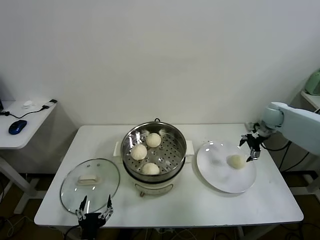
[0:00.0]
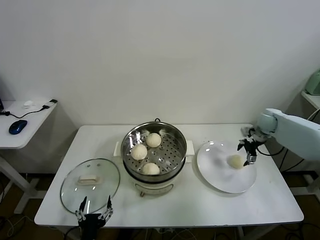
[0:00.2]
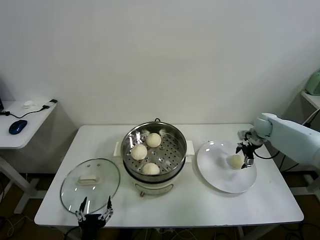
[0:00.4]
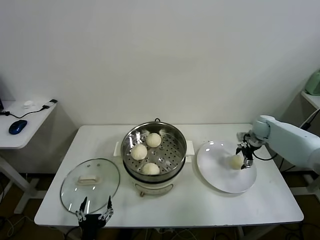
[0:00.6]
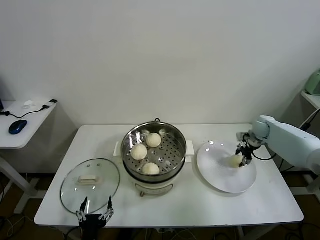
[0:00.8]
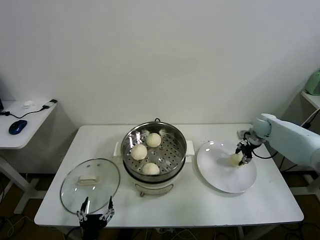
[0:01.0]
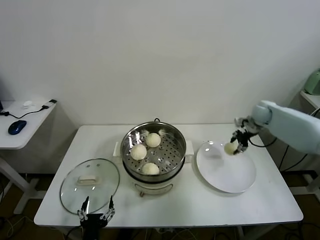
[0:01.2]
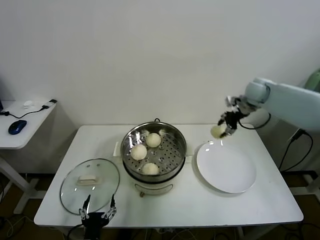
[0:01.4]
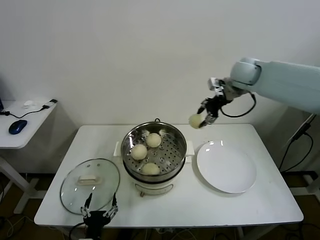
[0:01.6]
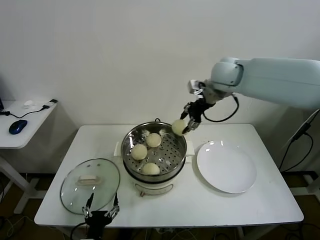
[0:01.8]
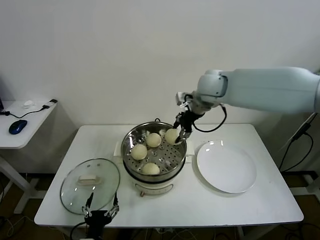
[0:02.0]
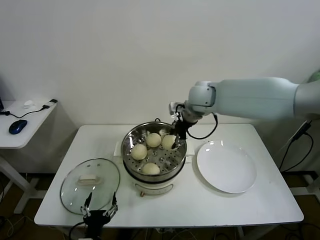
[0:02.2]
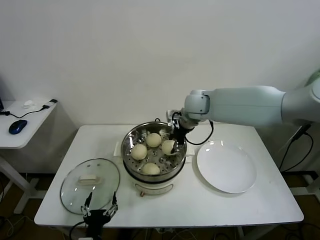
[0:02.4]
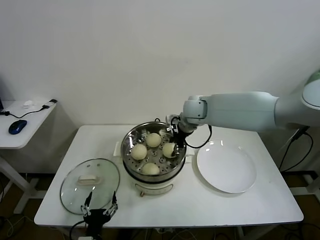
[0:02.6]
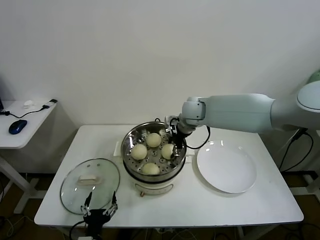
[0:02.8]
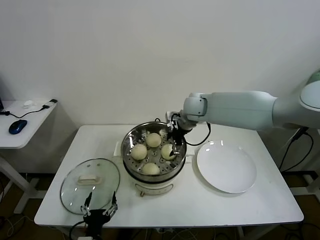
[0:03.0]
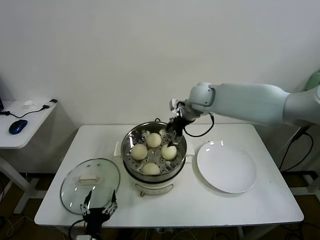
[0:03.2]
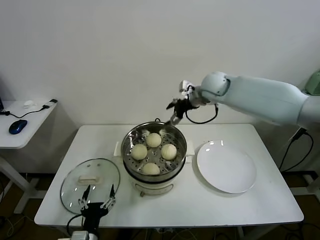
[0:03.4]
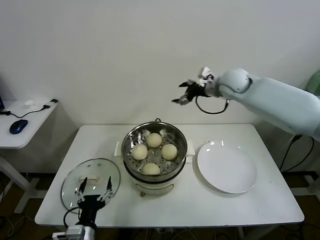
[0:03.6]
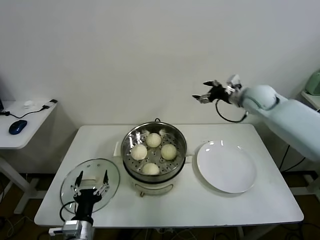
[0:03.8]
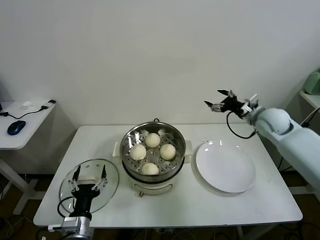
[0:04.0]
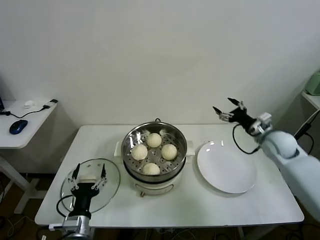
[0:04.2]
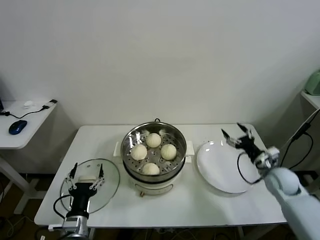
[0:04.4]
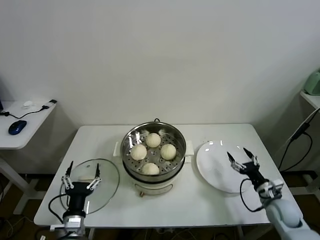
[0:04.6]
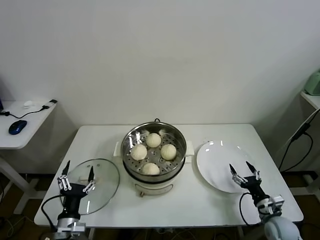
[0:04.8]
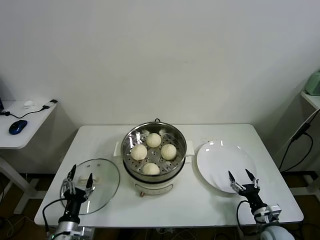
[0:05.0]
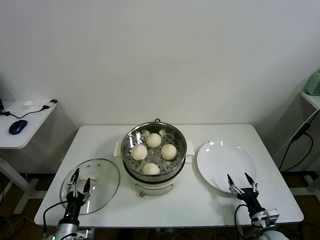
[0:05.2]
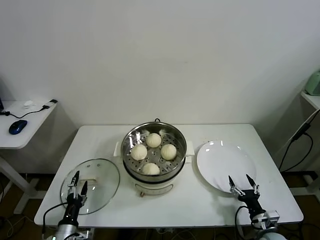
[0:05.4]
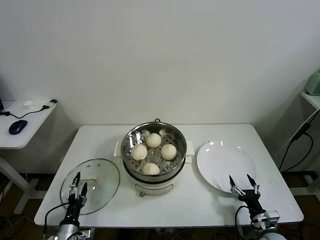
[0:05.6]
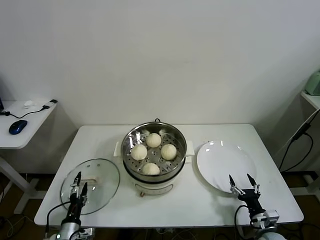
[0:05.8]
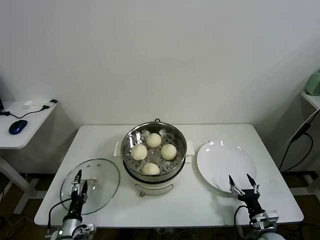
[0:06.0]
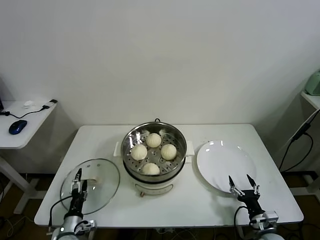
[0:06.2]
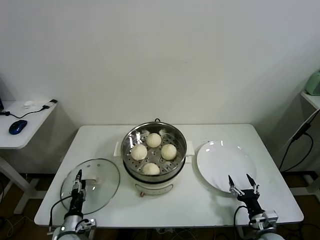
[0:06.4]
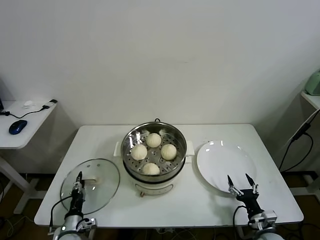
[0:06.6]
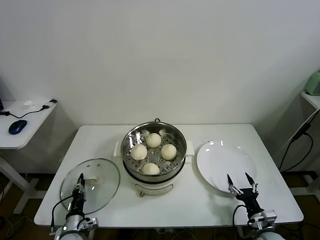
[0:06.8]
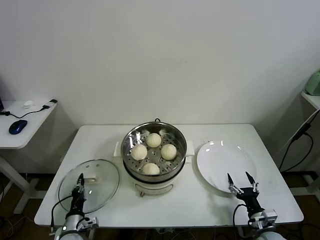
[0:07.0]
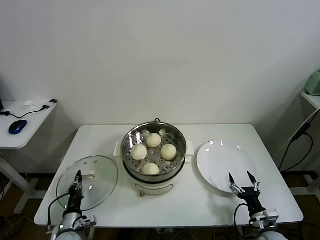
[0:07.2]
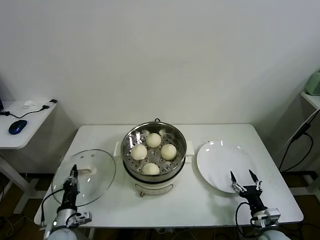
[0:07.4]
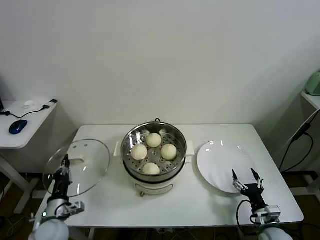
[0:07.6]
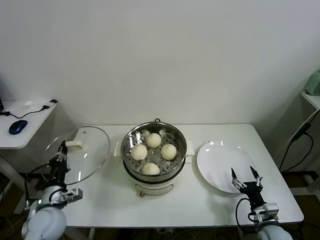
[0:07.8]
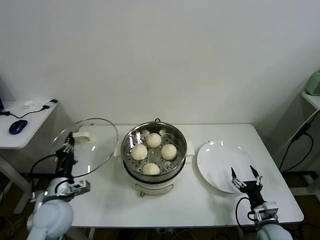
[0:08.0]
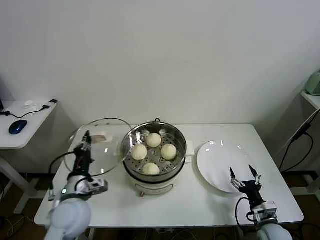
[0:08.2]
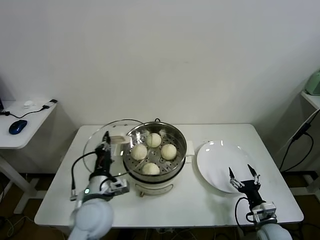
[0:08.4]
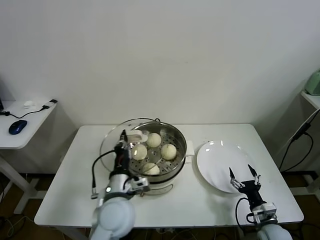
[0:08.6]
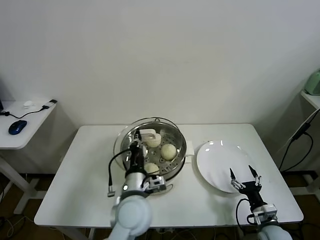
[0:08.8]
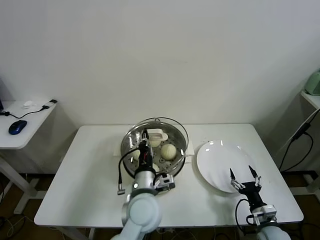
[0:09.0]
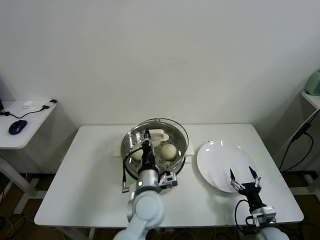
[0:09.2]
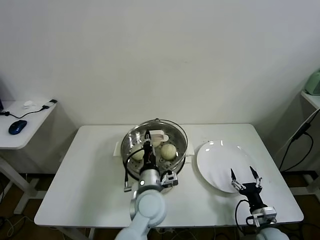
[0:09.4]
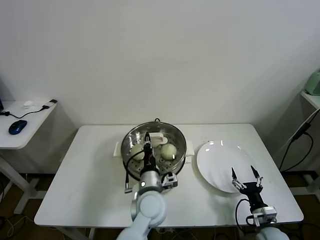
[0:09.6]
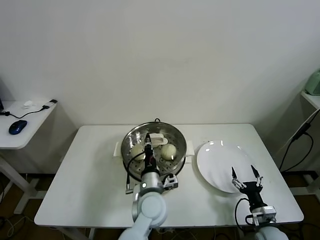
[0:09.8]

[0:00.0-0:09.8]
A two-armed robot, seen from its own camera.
Task of the whole recording: take steamed baozi put them in steamer.
Step, 0:01.0 to 0:03.0: Place the baozi on the steamer with right gripper.
Step, 0:03.2 to 0:06.8: Grasp the pot lid with left gripper.
0:00.0 to 0:01.4: The right gripper heads upward and to the left, covering roughly 15 cm, and closes its fingers.
0:01.4 to 0:02.8: The right gripper shifts approximately 25 cm to the left, and opens its fingers.
0:02.8 to 0:04.2: The right gripper is displaced to the right by some 30 cm, and opens up. The left gripper moves forward, some 5 cm.
0:04.2 to 0:05.6: The left gripper goes approximately 15 cm downward and to the left. The right gripper goes roughly 35 cm backward and downward.
0:05.6 to 0:07.0: The left gripper changes place by some 5 cm, and closes.
0:07.0 to 0:08.4: The left gripper goes roughly 25 cm upward and to the right.
0:08.4 to 0:09.8: The left gripper travels to the right by approximately 15 cm.

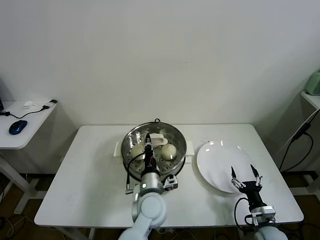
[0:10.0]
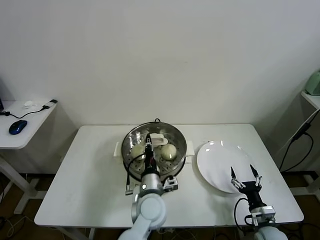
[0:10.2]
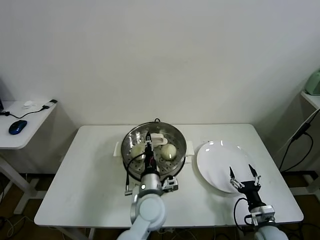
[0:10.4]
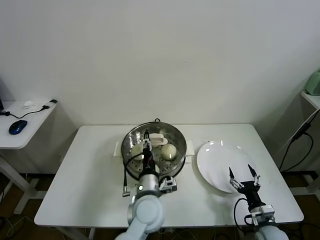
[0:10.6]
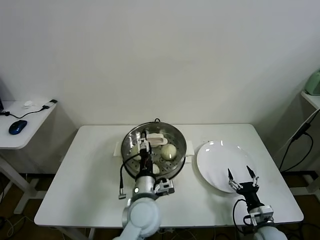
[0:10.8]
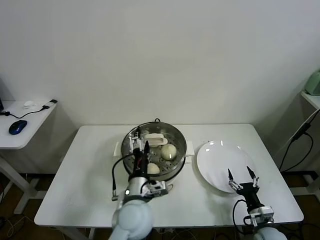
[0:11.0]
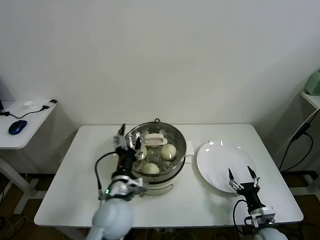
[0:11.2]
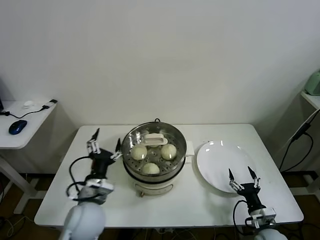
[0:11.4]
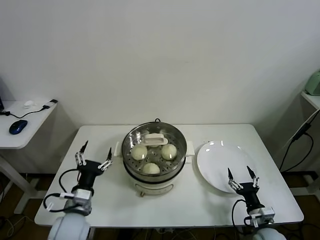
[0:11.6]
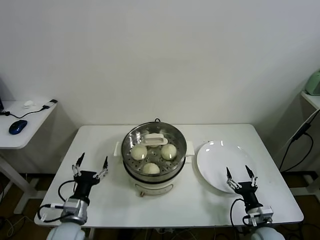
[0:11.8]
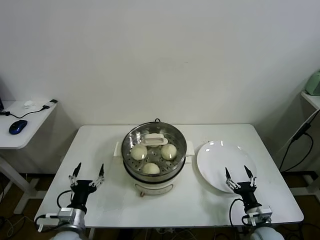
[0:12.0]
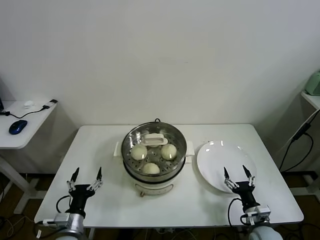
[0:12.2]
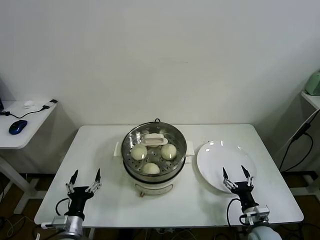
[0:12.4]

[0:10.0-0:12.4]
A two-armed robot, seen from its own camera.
Task of the whole recording: take steamed baozi put them in steamer.
0:10.0 to 0:11.2: The left gripper shifts roughly 5 cm to the left, and opens its fingers.
0:11.2 to 0:12.4: The left gripper heads to the left and downward, covering some 25 cm.

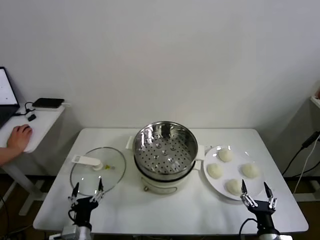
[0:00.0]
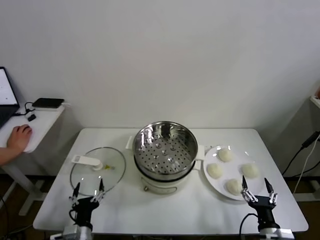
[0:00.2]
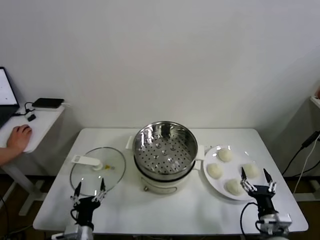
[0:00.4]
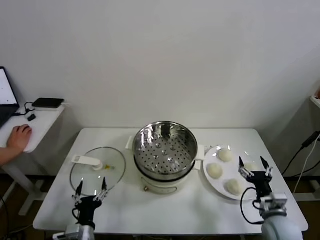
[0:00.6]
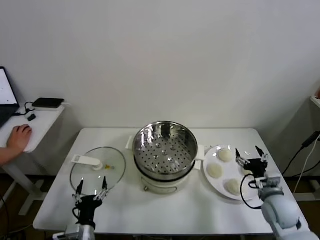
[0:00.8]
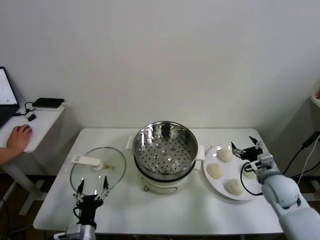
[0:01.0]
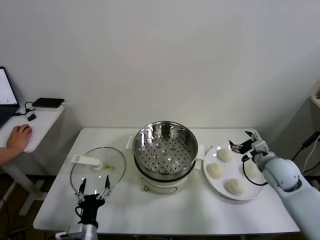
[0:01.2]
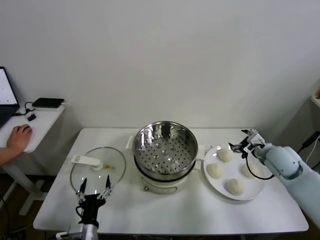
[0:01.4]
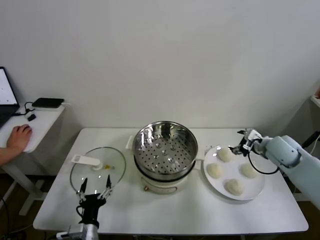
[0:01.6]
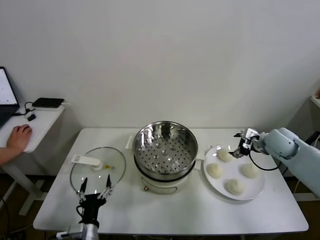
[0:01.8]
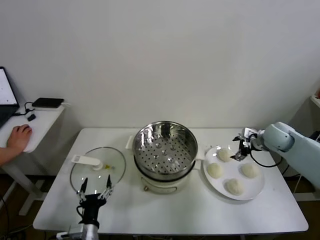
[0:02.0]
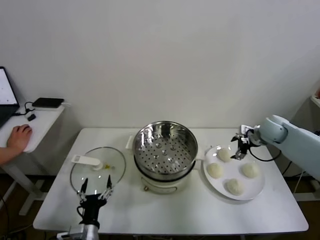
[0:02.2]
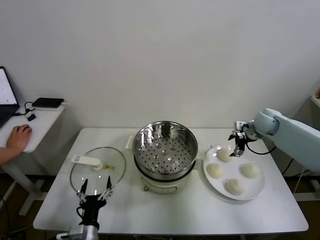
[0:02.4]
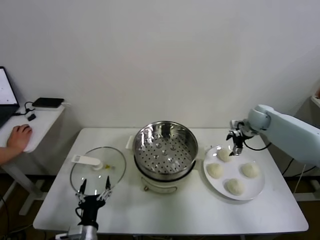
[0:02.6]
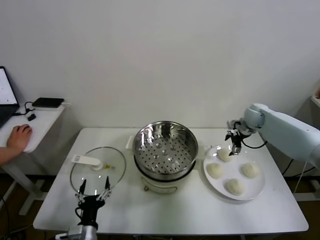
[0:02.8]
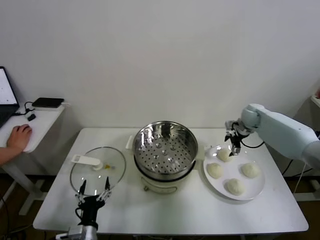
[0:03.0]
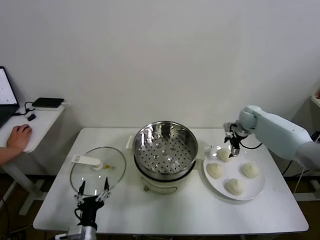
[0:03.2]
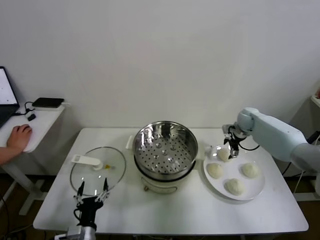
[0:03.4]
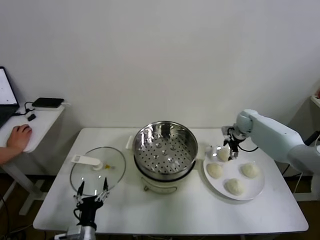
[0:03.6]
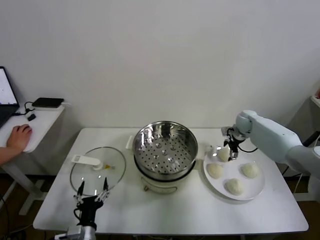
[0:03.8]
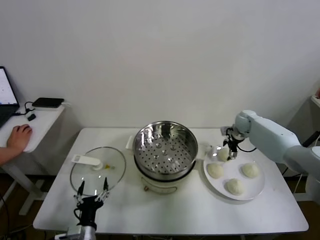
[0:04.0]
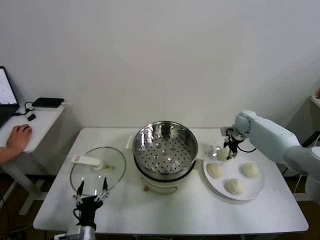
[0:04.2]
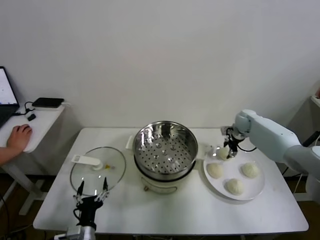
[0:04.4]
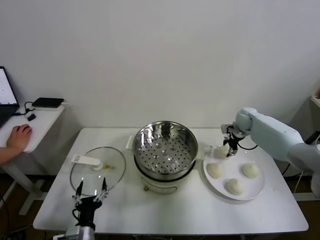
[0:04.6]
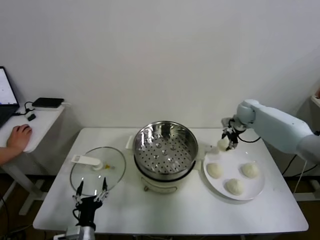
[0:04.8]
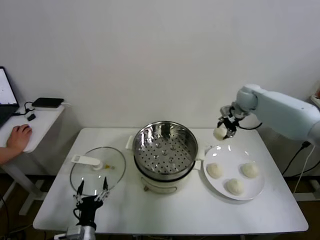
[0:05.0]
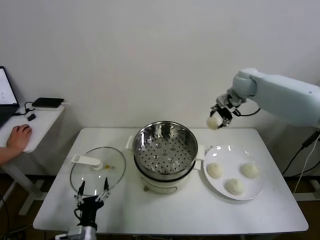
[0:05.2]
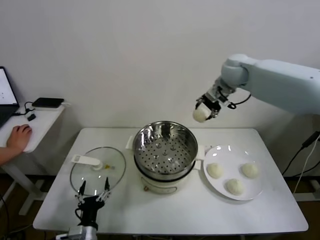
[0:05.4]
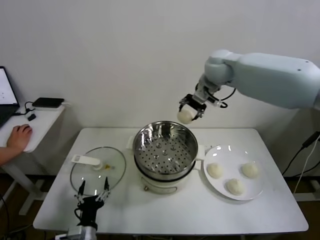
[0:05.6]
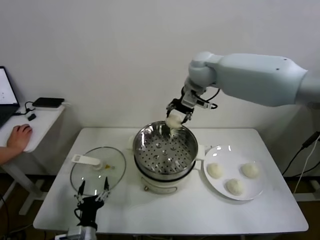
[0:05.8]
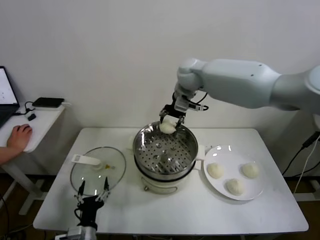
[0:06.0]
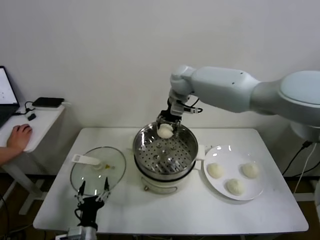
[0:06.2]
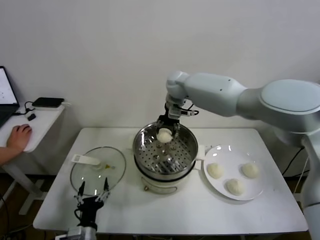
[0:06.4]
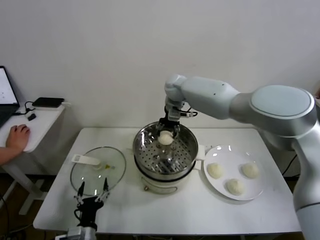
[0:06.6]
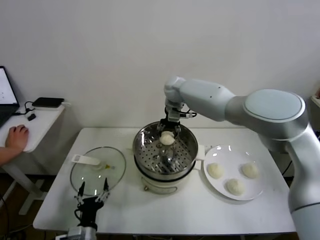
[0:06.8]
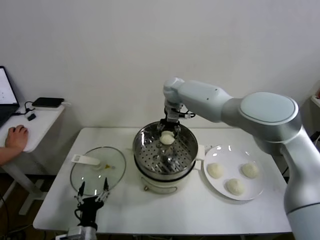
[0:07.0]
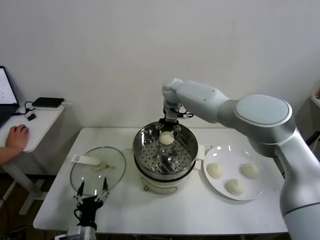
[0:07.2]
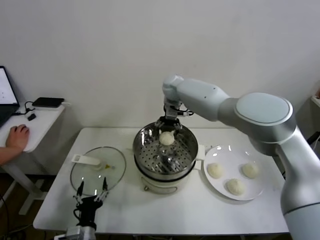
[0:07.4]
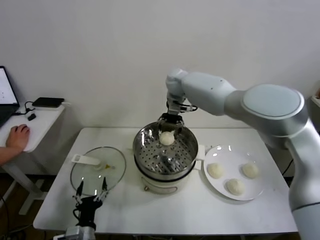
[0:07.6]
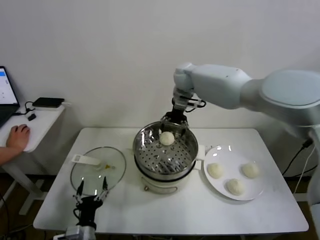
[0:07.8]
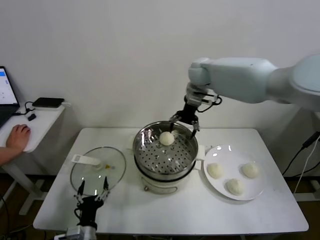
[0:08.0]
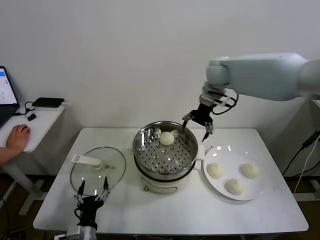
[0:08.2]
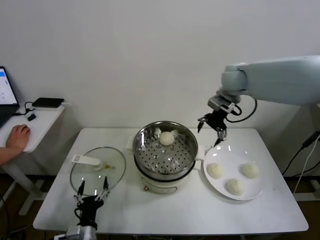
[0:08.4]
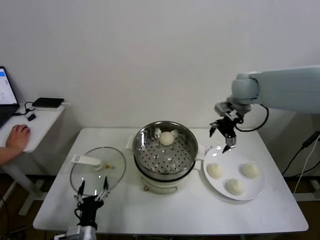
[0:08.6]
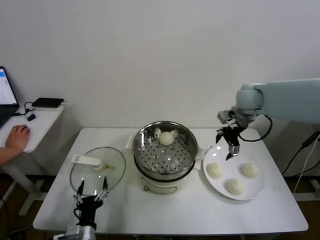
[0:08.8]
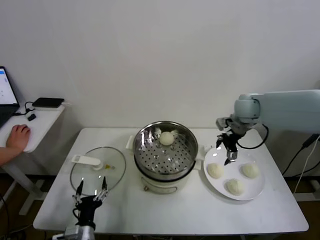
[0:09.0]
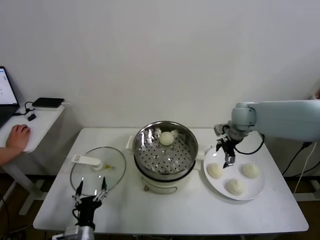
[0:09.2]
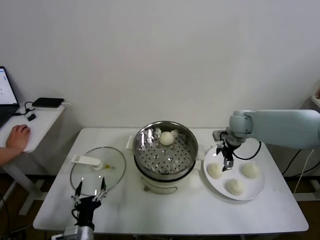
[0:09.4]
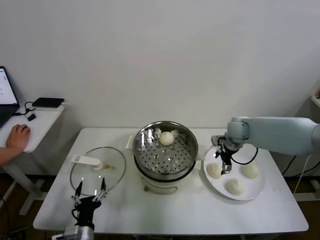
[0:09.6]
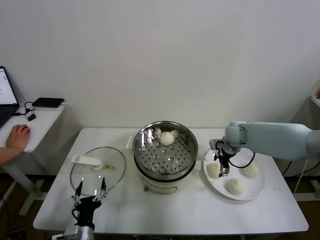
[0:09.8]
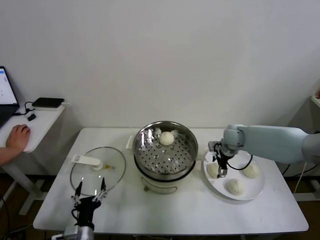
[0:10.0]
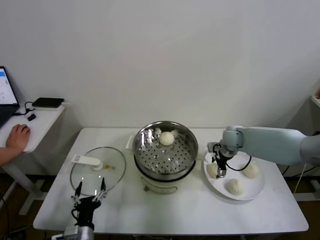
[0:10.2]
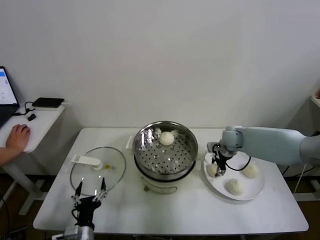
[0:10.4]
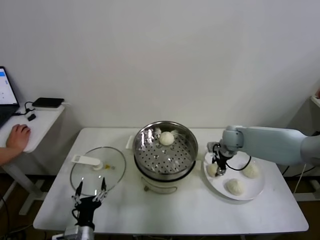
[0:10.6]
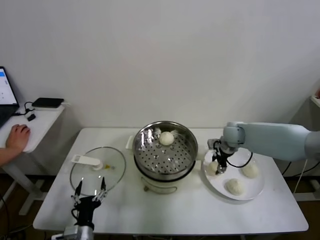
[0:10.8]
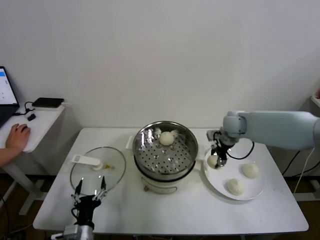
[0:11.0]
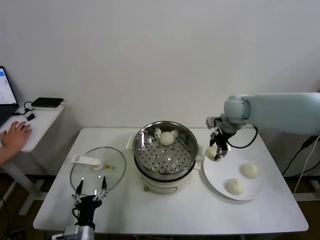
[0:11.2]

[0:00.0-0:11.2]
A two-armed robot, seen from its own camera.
Task of the whole recording: take steamed baozi put them in steamer.
Step, 0:00.0 to 0:04.4: Grasp the baozi in the plate with right gripper.
Step, 0:04.6 to 0:07.4: Place the baozi on the steamer with right gripper.
Step, 0:07.6 to 0:10.6: Grasp the baozi in the plate with right gripper.
0:01.6 to 0:03.2: The right gripper moves forward, approximately 15 cm.
0:03.2 to 0:04.8: The right gripper goes some 5 cm upward, and closes its fingers.
0:04.8 to 0:06.4: The right gripper travels to the left by some 30 cm.
0:06.4 to 0:08.0: The right gripper goes roughly 10 cm to the right and upward, and opens up.
0:08.0 to 0:09.6: The right gripper is displaced downward and to the right by some 25 cm.
0:09.6 to 0:11.2: The right gripper is displaced upward by about 10 cm, and closes up.
